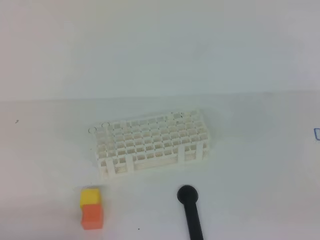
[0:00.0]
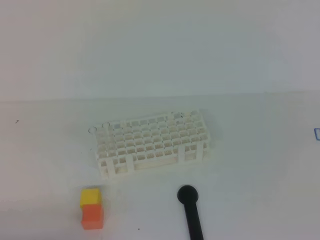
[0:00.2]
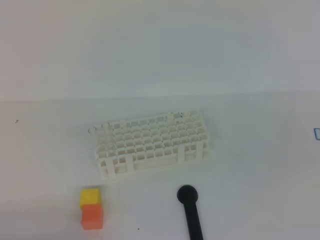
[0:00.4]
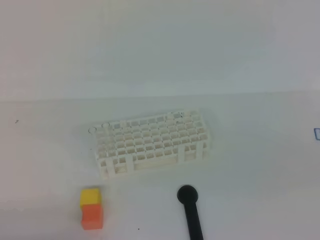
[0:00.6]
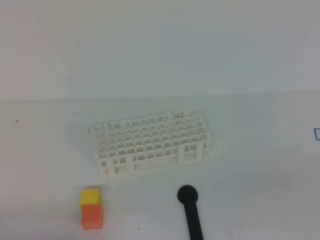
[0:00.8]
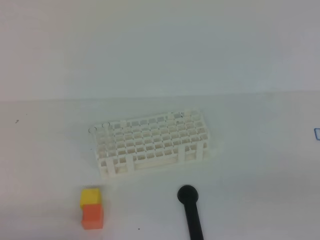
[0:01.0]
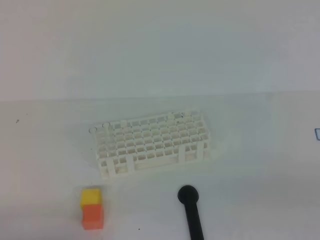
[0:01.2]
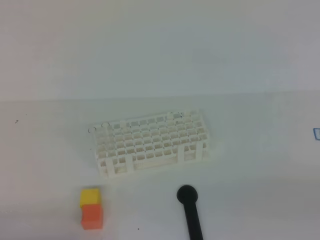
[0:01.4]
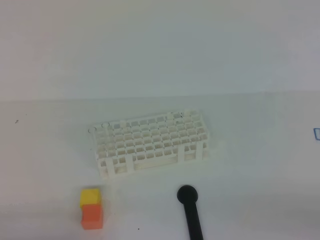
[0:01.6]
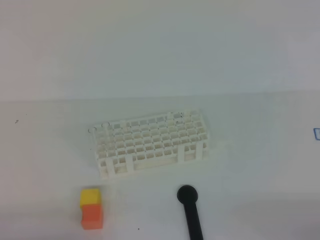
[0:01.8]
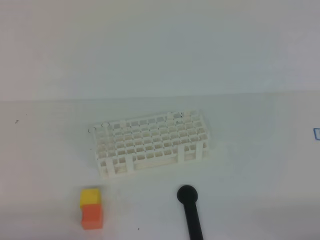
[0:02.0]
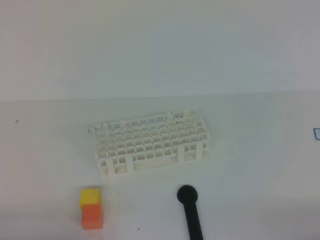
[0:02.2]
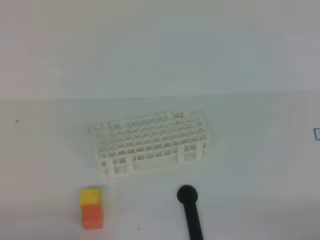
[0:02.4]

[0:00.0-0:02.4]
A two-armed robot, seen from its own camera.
0:00.0 to 0:01.2: The right gripper shifts approximately 15 cm downward, to the right and backward.
